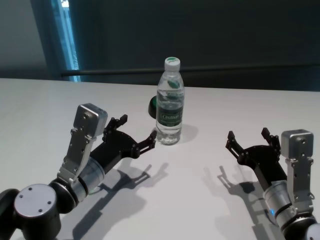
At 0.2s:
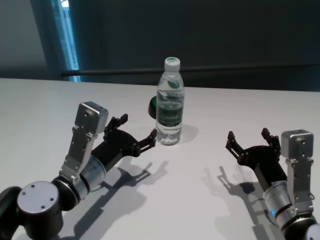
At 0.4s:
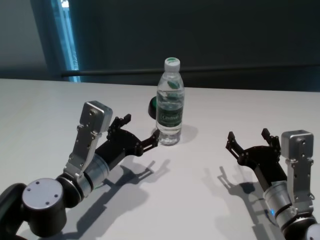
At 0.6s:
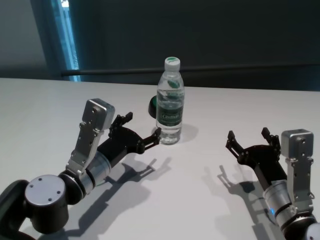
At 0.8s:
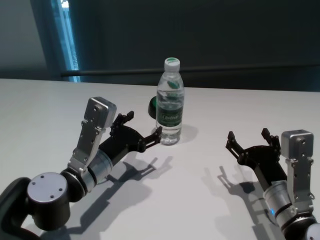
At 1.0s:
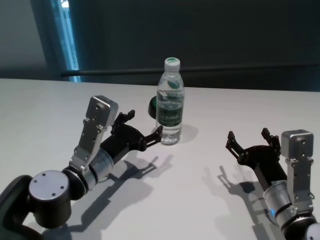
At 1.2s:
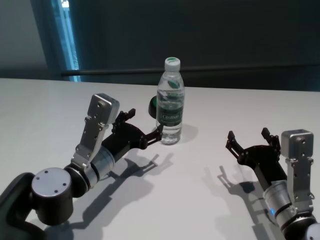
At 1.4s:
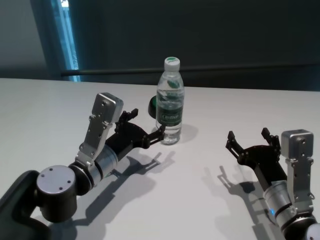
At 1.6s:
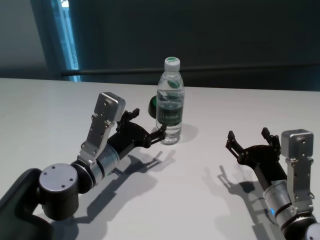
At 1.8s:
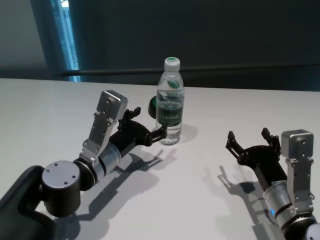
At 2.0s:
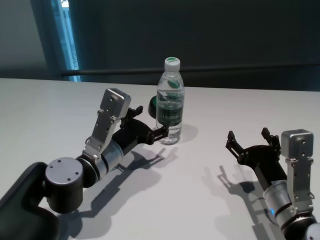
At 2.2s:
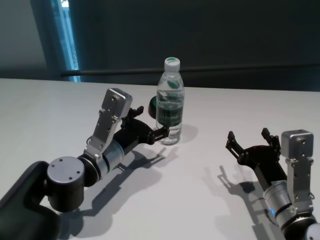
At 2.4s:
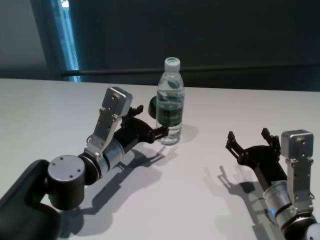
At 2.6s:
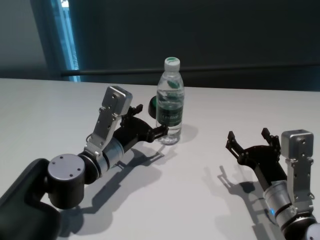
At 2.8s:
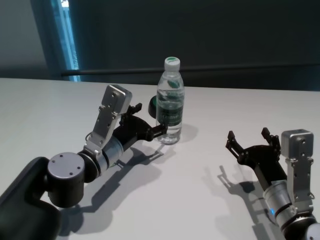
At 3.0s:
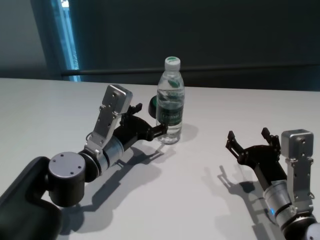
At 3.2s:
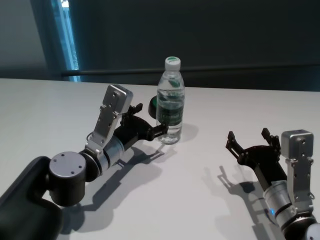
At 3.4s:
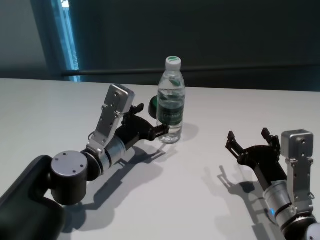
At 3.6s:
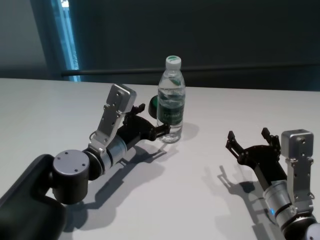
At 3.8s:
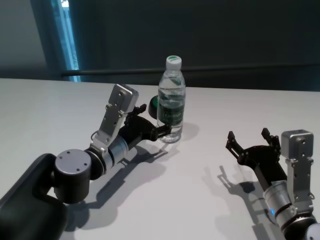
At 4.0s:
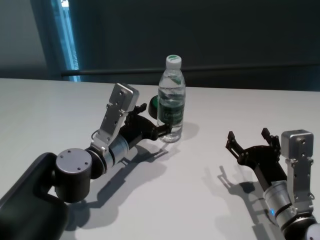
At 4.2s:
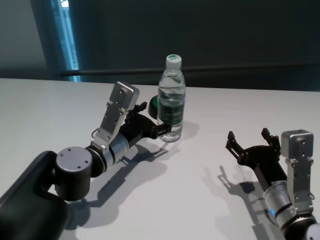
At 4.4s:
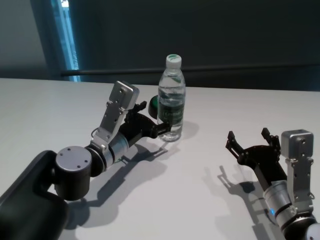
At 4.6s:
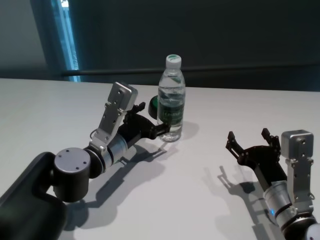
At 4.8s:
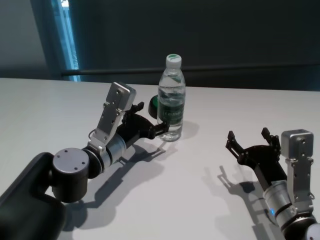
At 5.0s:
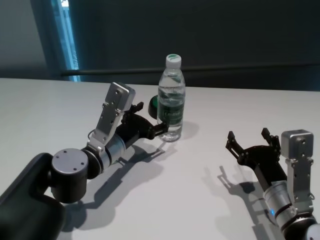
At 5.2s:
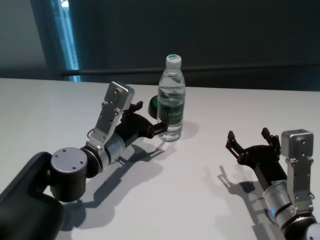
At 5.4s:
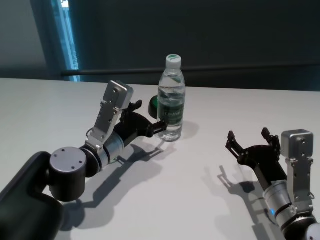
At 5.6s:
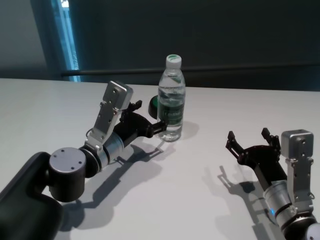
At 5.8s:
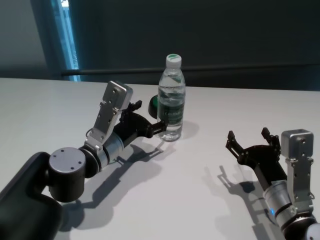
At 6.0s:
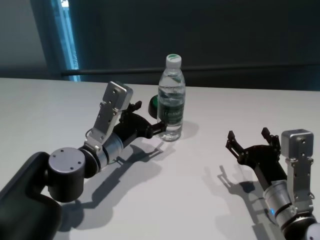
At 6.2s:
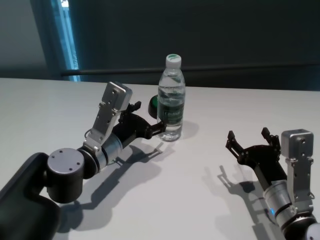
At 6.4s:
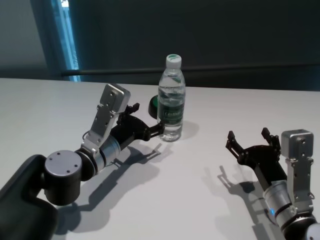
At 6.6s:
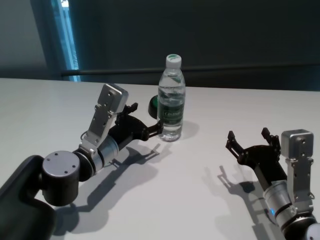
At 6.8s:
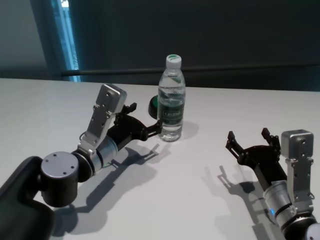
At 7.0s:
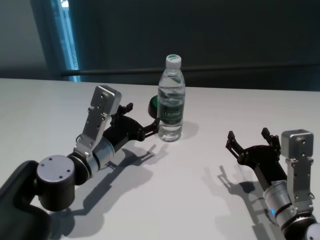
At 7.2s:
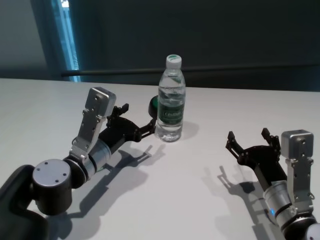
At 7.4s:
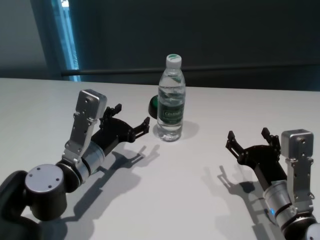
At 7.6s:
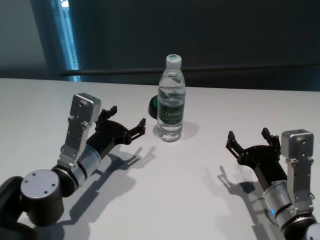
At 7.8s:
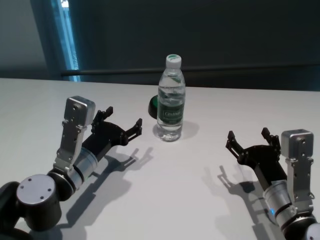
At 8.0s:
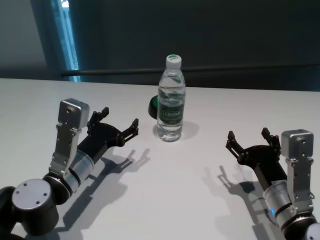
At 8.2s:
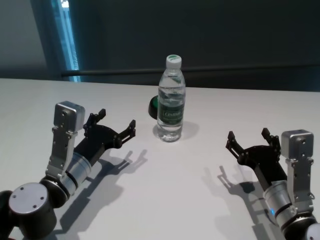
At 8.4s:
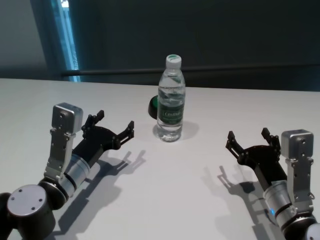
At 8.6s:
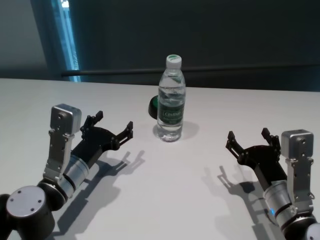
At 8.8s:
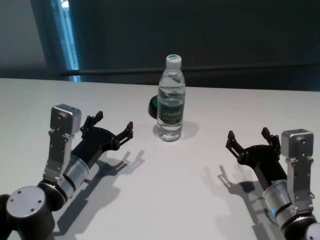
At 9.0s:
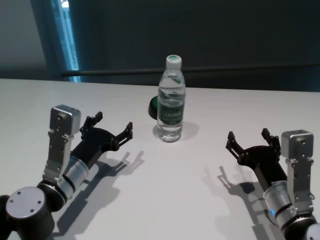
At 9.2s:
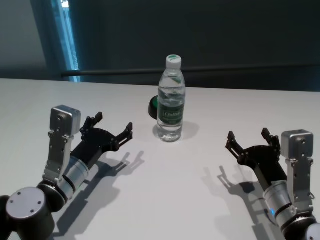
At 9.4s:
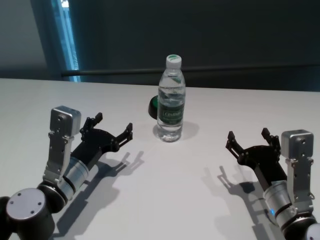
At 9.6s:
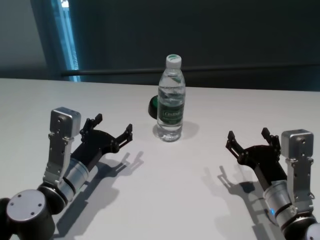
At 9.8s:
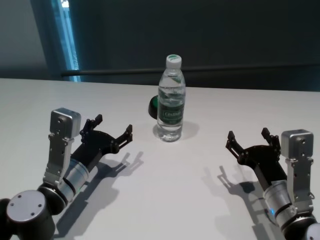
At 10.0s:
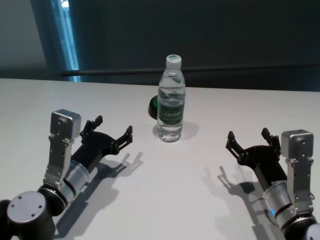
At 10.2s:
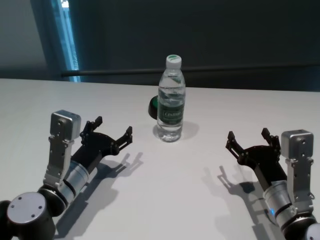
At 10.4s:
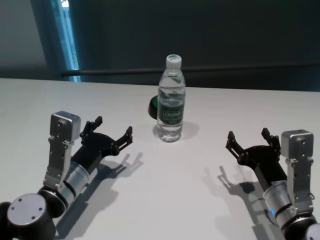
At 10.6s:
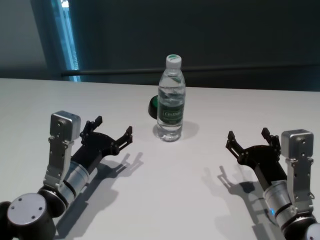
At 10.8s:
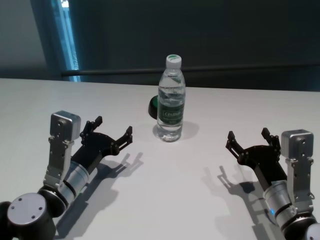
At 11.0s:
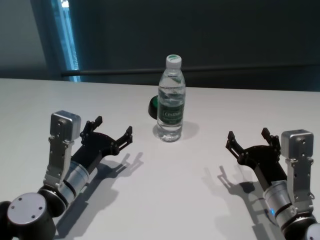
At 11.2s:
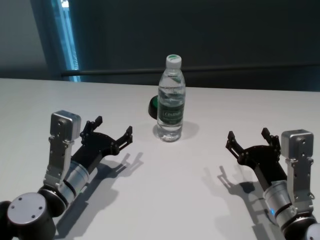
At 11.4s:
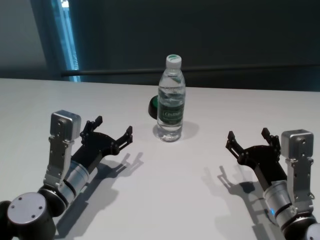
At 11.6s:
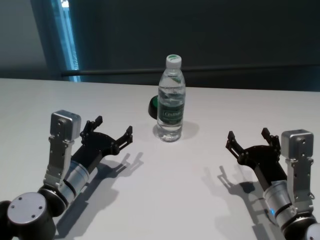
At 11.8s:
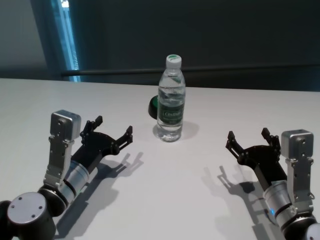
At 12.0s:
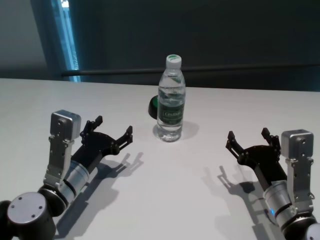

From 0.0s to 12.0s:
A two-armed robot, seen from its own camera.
Task of the whole recording: return to a safe position after touching an obstacle with your arm on the white table.
Step, from 0.0s to 7.2s: Touch the bottle with left gripper.

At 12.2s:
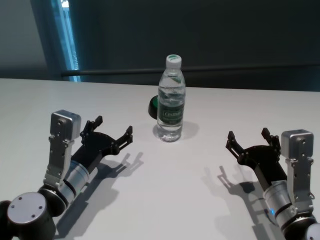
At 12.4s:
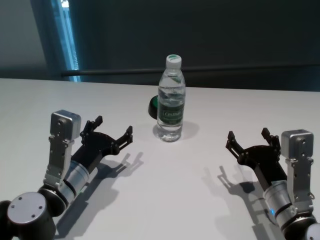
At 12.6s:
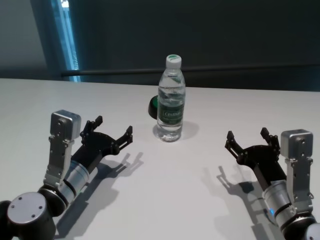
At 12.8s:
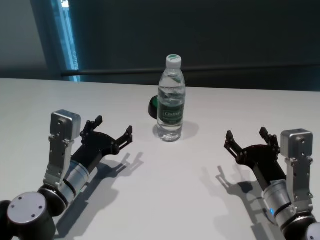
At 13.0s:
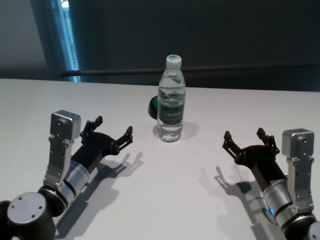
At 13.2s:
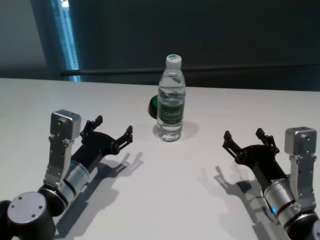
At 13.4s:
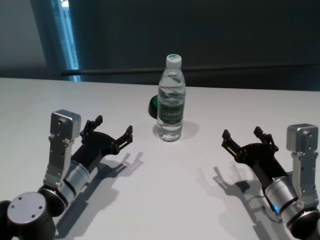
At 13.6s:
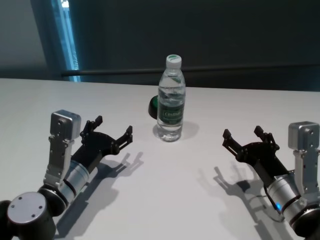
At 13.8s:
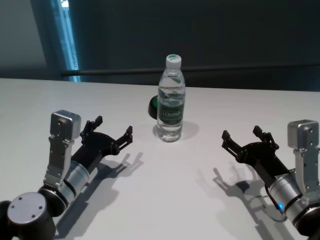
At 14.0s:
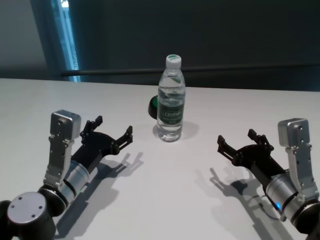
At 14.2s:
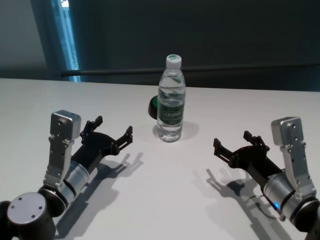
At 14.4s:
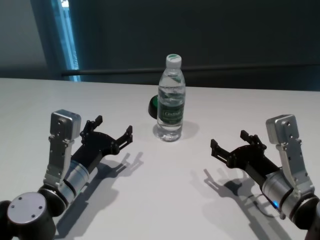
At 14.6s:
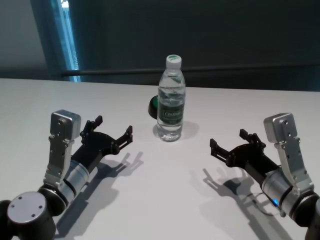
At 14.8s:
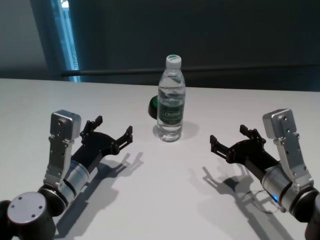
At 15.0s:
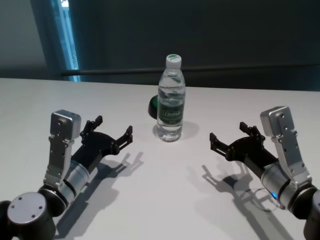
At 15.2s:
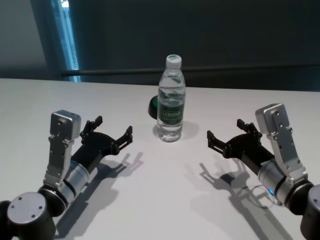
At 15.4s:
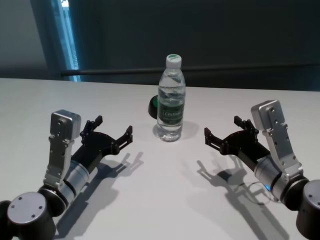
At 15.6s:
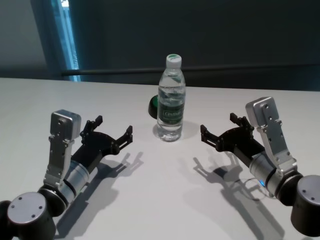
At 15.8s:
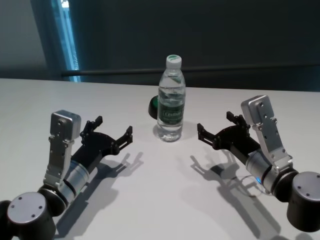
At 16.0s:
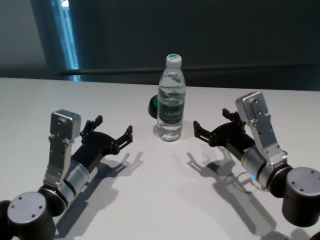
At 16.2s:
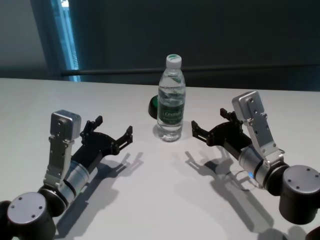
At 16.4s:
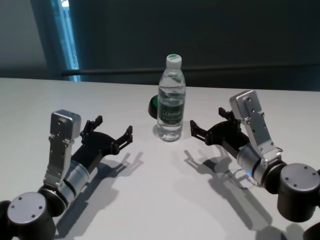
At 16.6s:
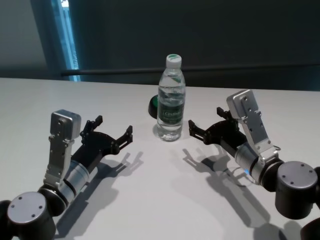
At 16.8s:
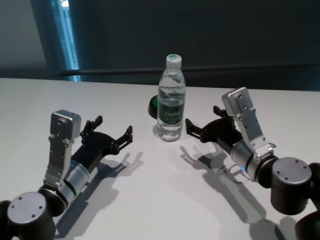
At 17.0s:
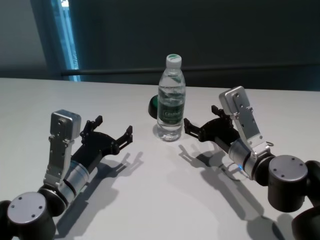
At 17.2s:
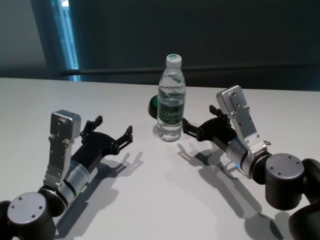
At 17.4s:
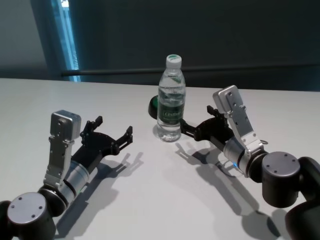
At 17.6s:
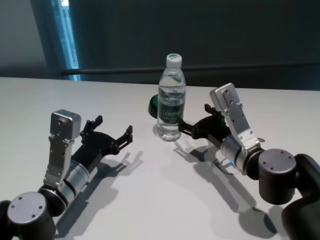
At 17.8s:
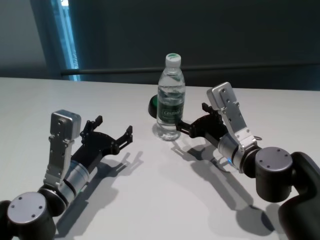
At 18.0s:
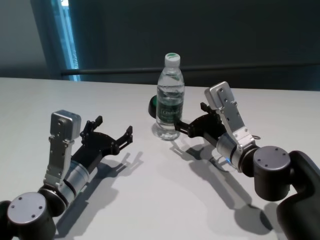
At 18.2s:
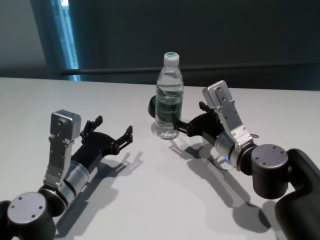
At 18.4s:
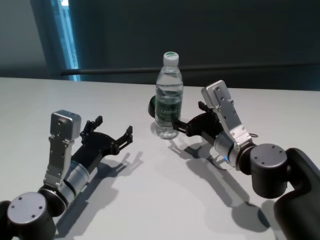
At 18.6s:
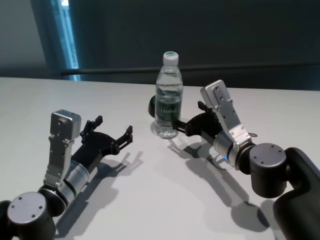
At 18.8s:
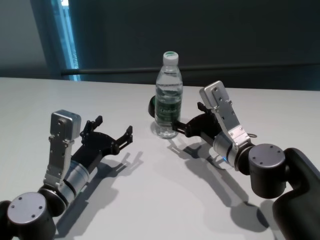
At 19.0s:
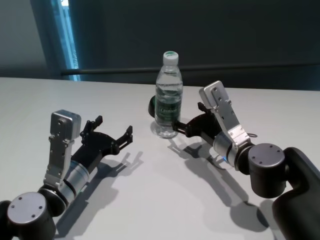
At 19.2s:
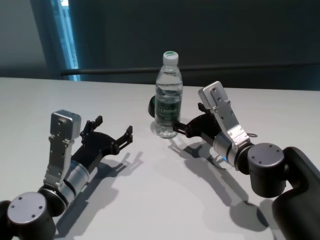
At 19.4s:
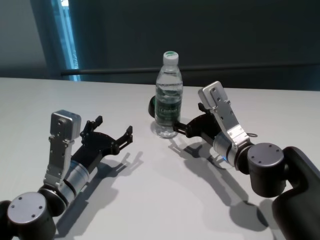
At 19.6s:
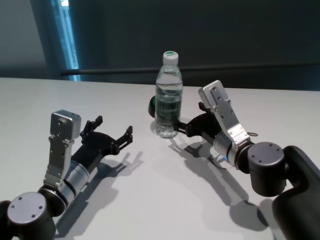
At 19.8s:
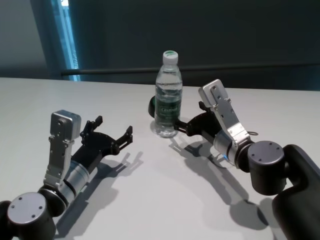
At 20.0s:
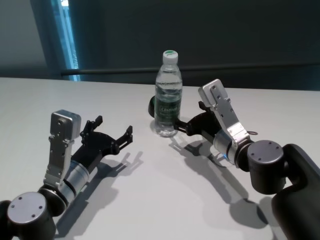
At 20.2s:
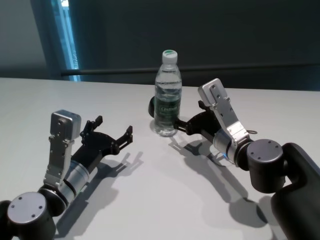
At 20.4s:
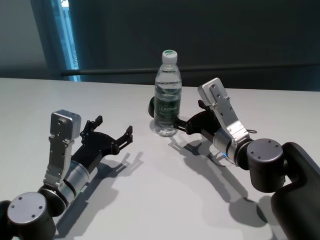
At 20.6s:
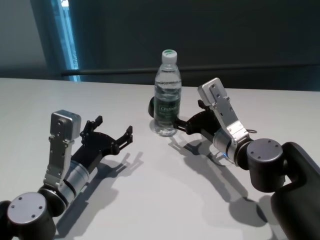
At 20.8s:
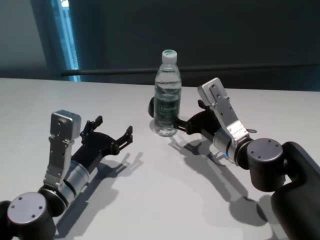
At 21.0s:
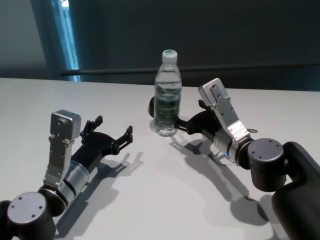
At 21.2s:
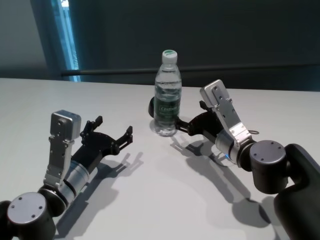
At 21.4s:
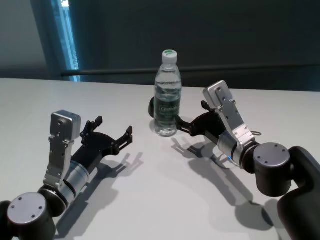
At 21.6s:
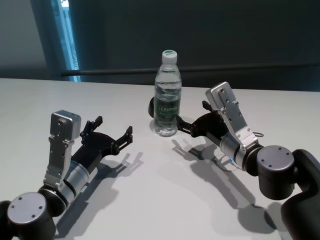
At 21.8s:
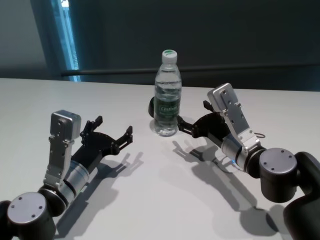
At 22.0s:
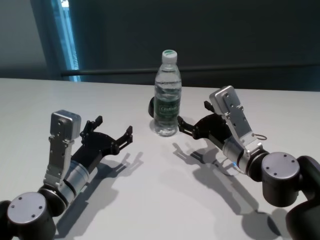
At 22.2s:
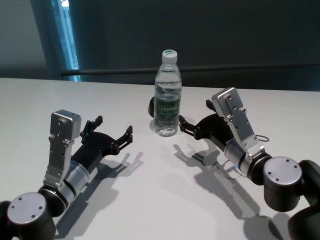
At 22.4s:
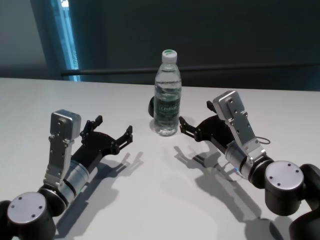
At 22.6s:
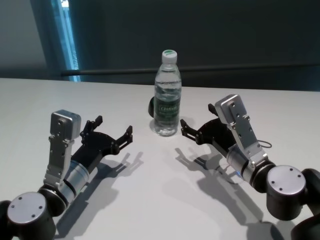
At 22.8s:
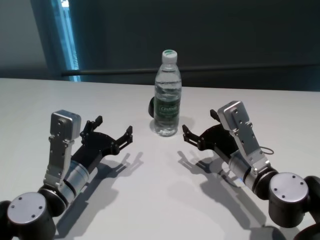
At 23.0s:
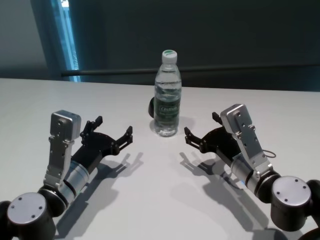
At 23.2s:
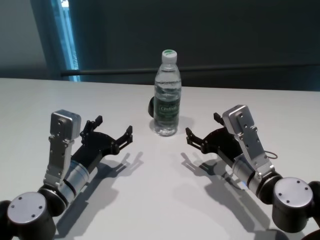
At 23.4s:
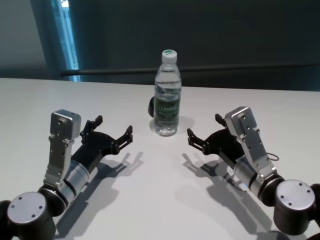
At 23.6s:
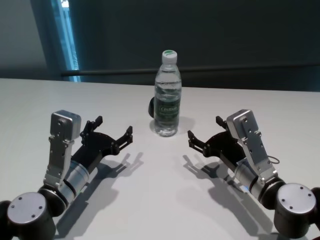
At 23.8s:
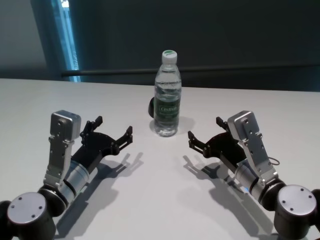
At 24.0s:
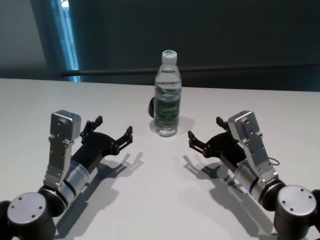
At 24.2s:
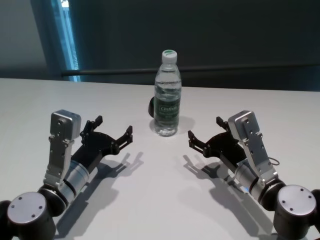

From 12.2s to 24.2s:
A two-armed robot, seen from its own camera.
Task of the whole recording: return to a safe position after touching an obstacle with your arm on the white table.
Step, from 12.2s to 22.4s: Touch the bottle with right gripper.
